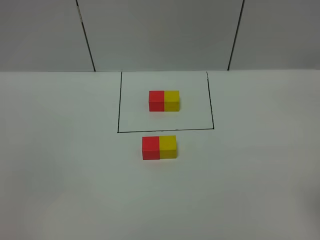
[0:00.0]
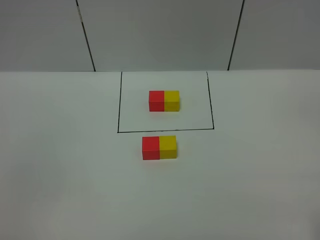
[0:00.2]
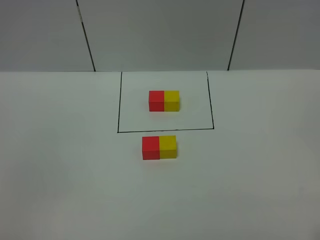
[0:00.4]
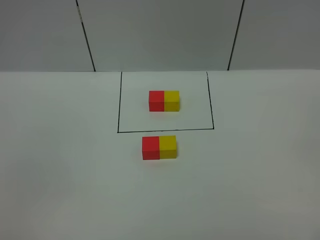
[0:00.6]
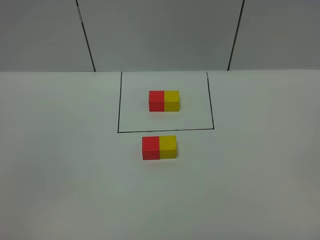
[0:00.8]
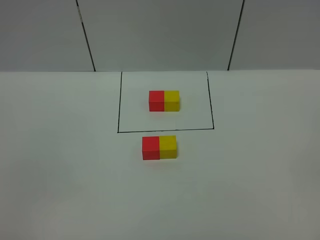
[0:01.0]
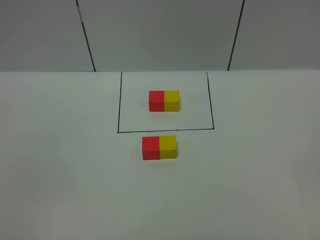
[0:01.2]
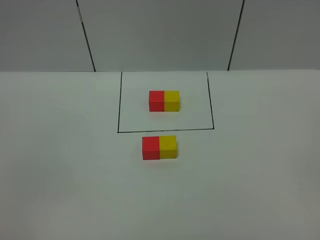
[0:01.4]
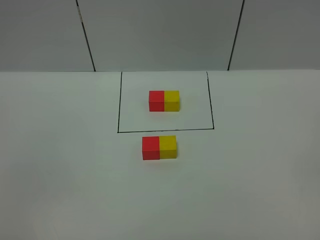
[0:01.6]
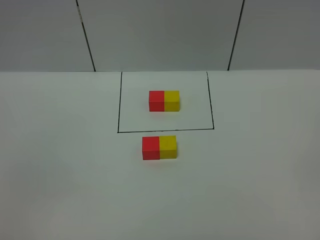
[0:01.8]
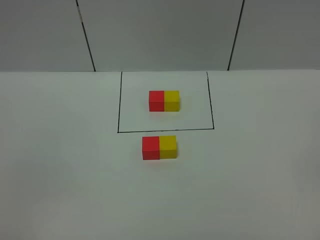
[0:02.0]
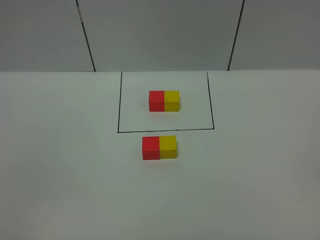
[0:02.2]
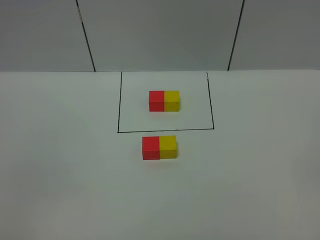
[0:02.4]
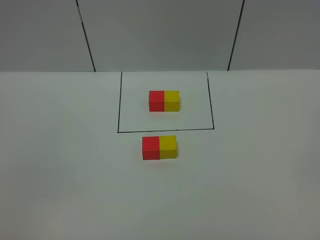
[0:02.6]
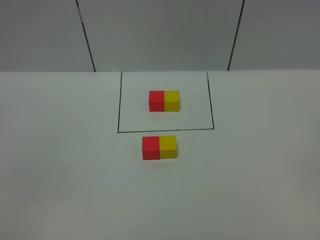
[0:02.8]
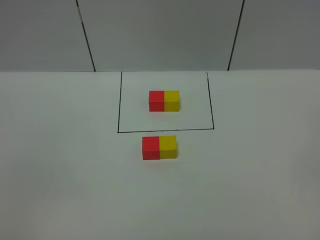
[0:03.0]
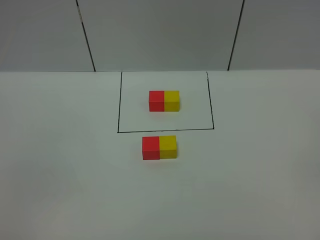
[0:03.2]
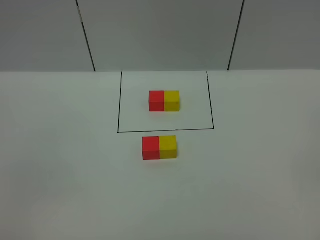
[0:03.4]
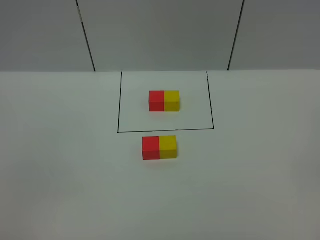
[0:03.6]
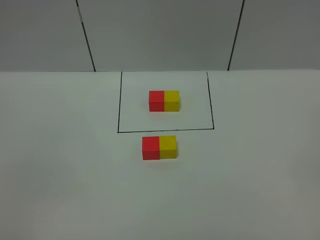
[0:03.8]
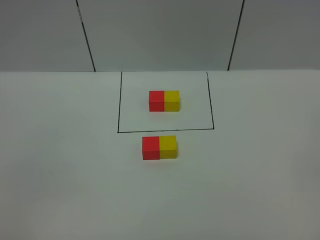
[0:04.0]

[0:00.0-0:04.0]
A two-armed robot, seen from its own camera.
Task of the whole recording: According to the building block template in front, assemble the scattered blocks together.
0:01.4 to 0:04.0: Both grippers stay put.
